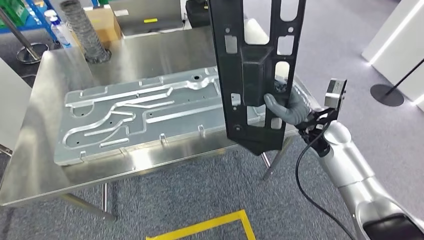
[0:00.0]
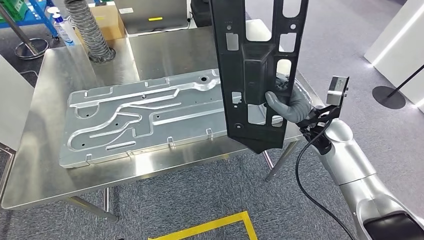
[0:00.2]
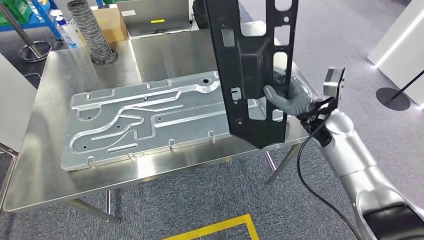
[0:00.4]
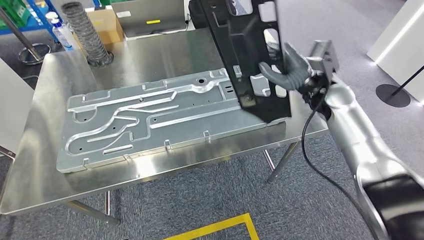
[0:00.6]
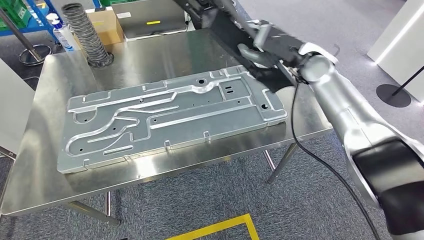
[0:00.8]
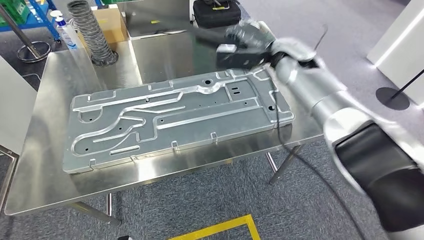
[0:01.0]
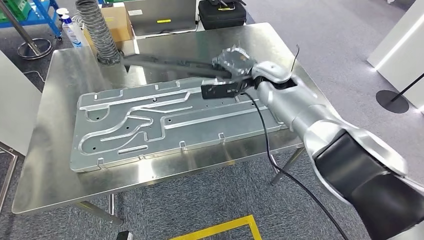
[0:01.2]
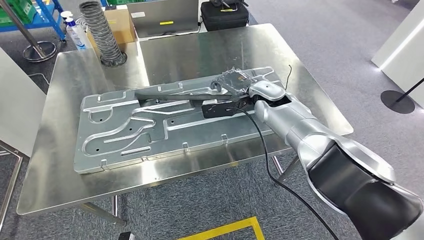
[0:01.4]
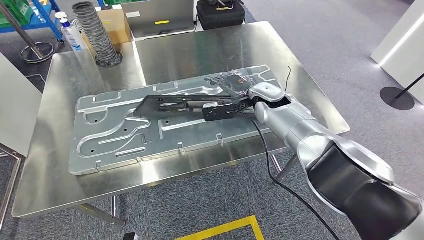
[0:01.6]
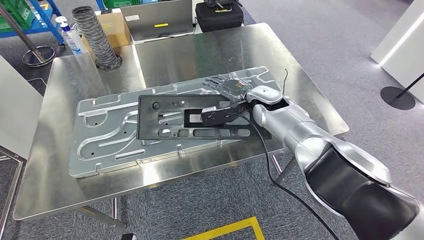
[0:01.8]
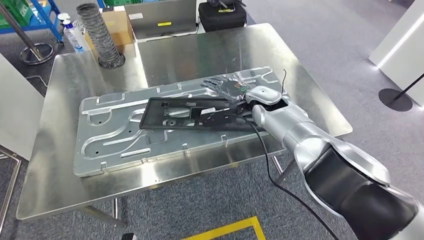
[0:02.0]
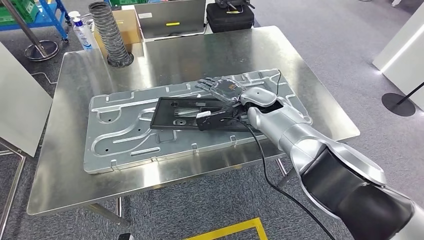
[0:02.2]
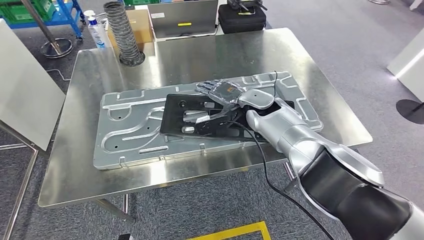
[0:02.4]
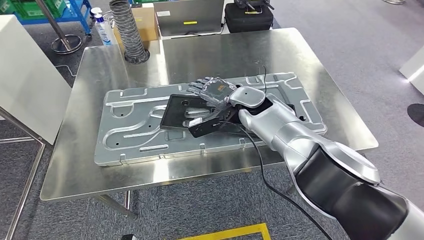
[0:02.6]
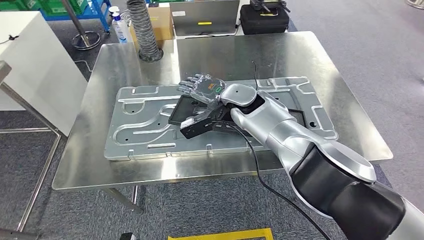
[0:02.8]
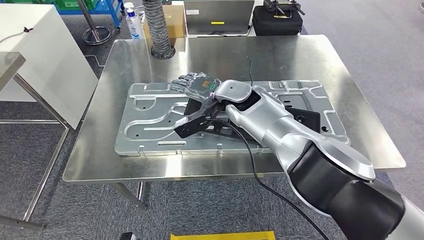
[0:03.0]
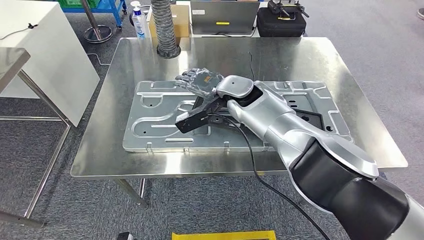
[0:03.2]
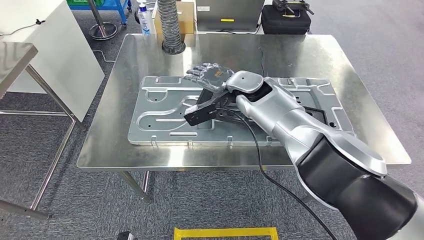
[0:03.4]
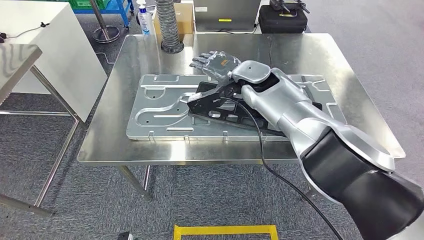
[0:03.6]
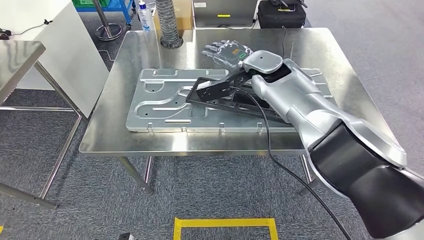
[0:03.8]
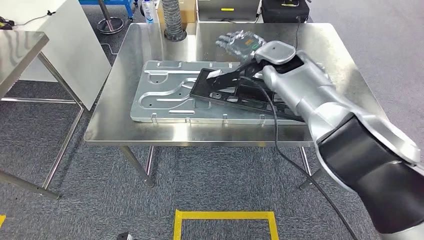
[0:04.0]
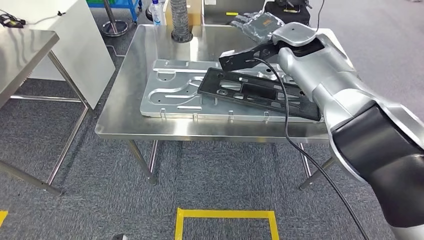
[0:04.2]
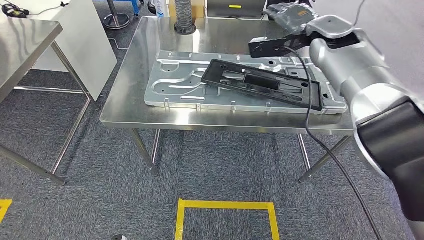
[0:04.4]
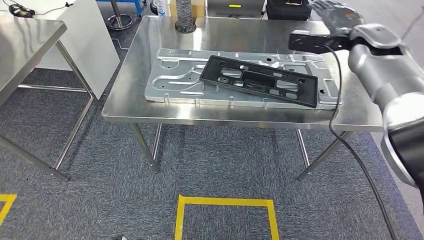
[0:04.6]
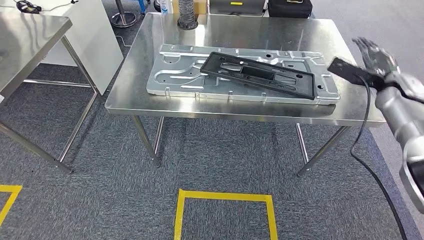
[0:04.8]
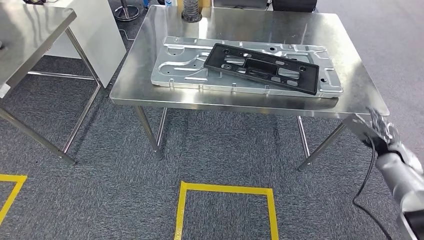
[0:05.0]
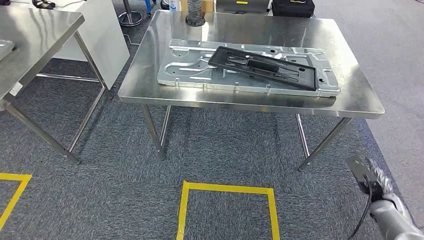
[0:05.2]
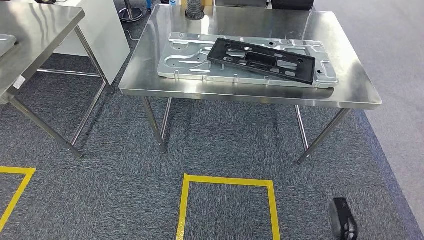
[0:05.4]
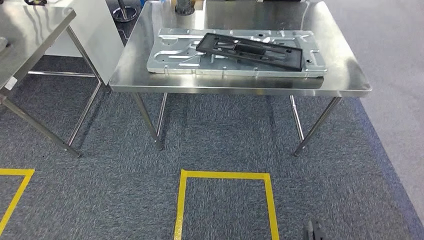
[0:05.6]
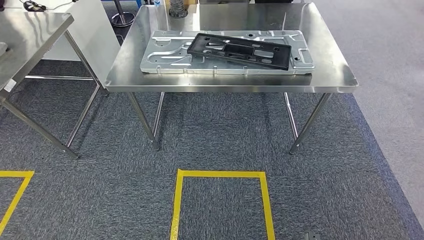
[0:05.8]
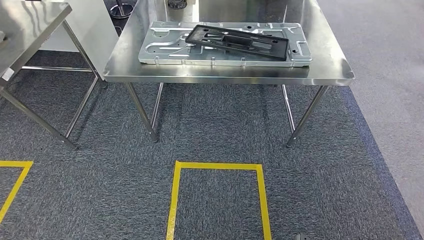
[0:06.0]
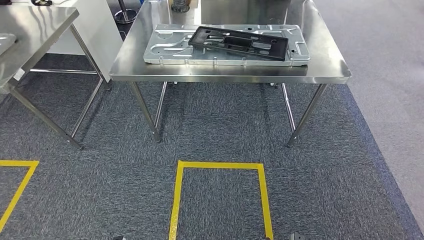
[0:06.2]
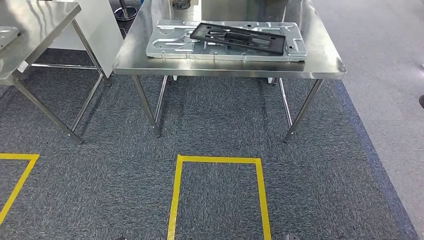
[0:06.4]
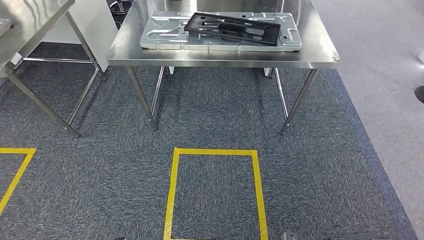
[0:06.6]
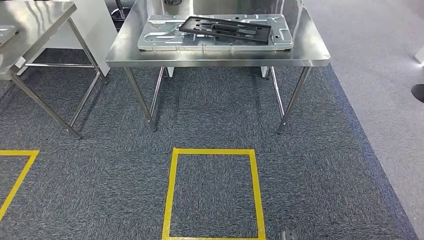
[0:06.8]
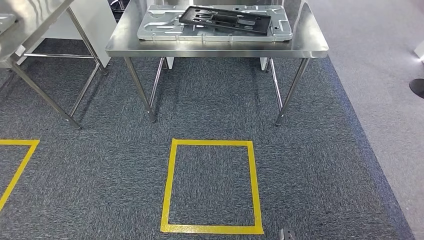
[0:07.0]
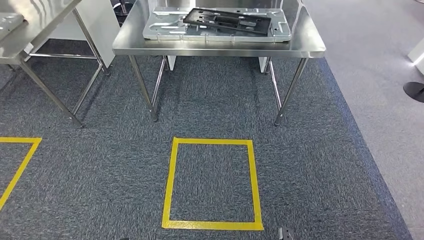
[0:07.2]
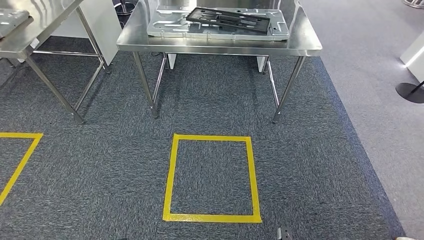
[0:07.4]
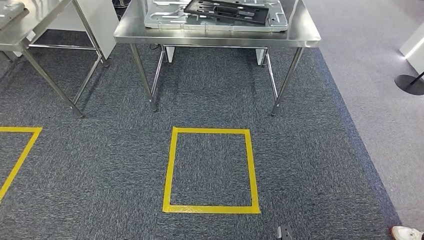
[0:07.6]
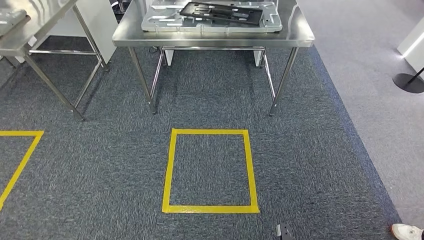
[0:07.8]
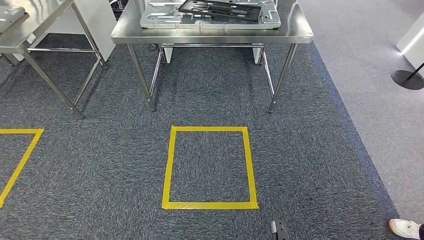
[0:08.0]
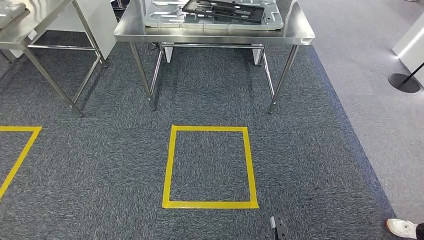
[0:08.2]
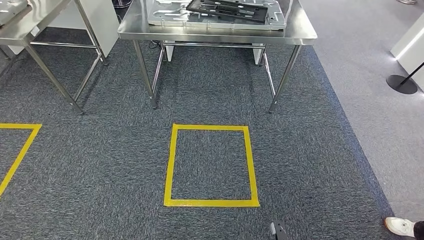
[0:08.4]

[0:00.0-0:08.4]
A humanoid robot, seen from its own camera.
Step, 0:00.0 to 0:02.6: Insert the large material into the corresponding slot on the workbench.
Step, 0:04.4 to 0:08.4: Move to the initial position of the shelf.
